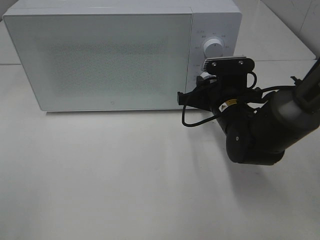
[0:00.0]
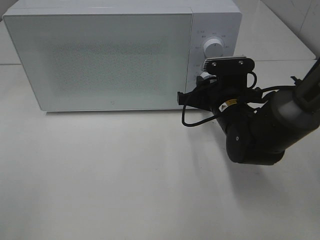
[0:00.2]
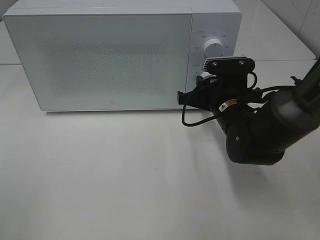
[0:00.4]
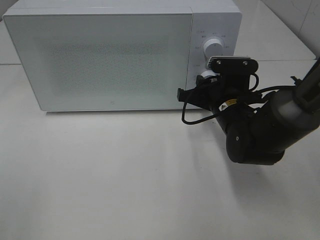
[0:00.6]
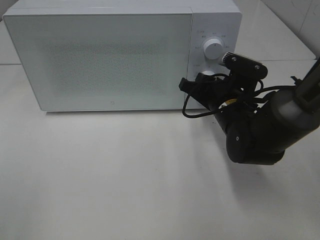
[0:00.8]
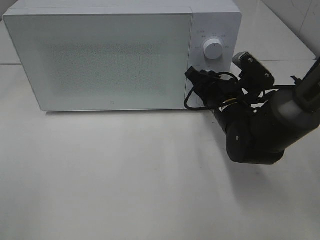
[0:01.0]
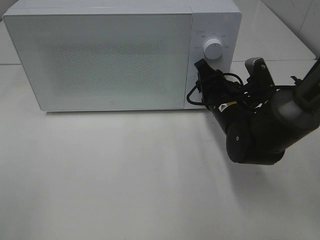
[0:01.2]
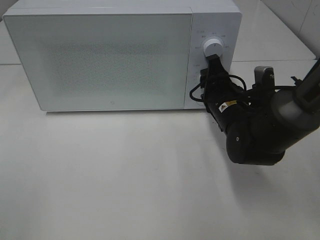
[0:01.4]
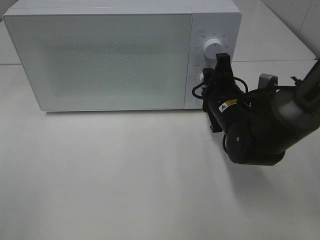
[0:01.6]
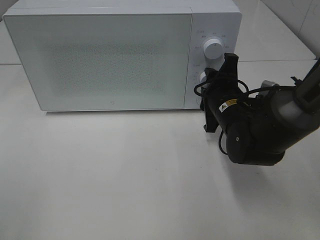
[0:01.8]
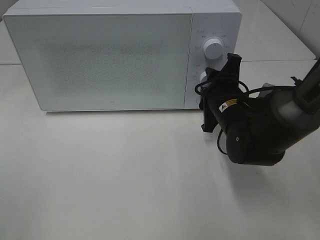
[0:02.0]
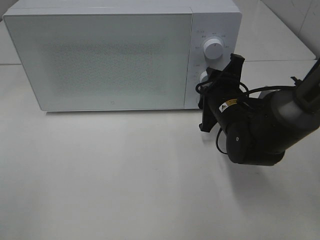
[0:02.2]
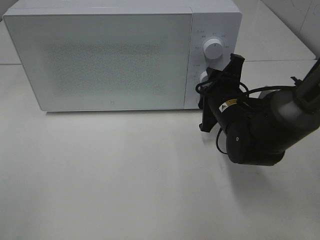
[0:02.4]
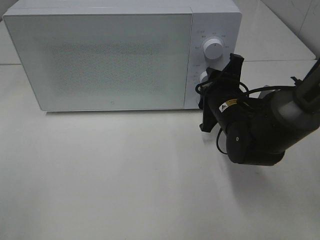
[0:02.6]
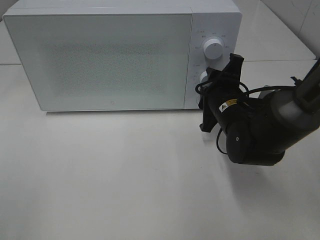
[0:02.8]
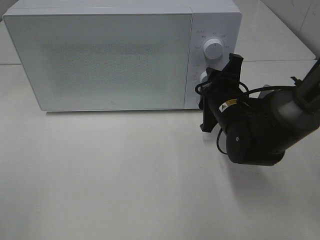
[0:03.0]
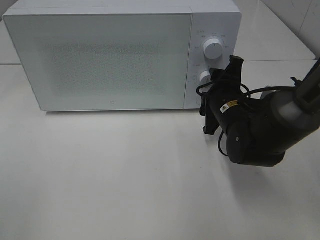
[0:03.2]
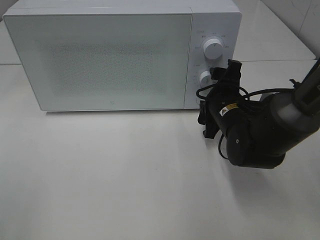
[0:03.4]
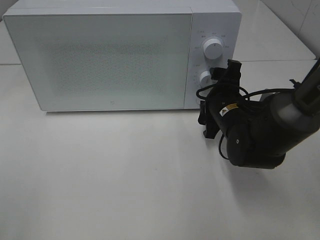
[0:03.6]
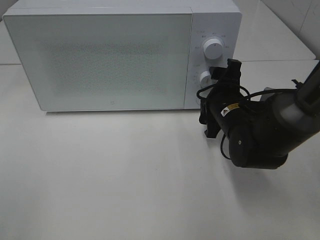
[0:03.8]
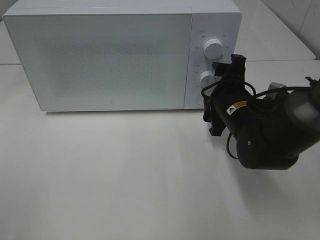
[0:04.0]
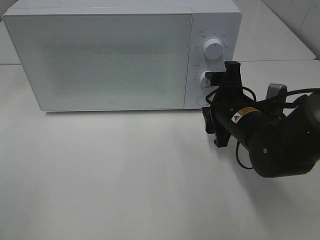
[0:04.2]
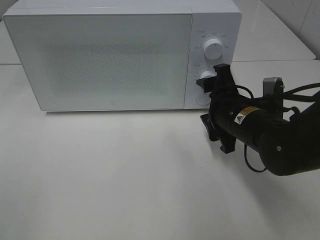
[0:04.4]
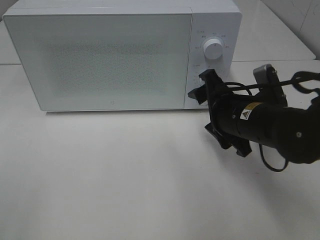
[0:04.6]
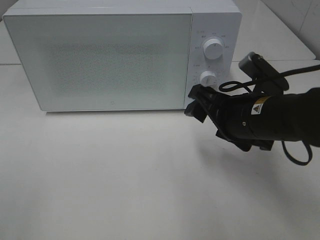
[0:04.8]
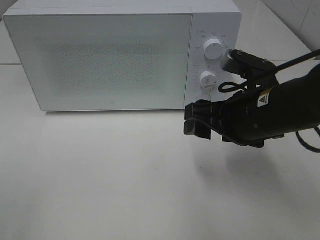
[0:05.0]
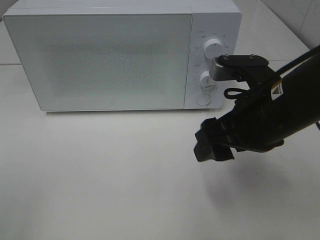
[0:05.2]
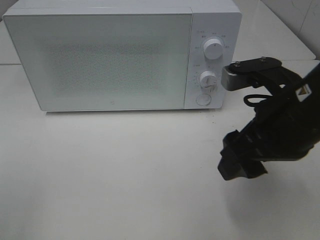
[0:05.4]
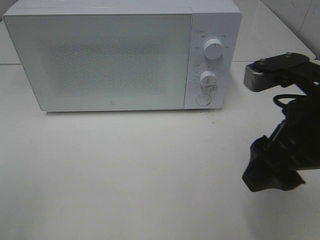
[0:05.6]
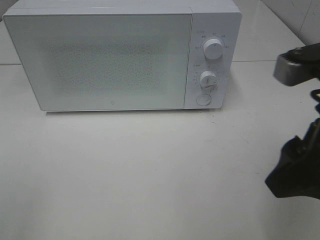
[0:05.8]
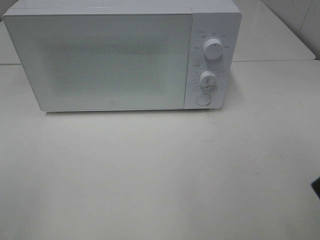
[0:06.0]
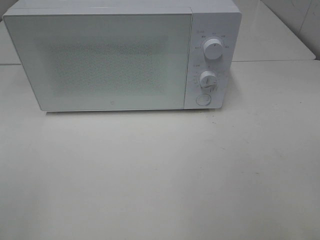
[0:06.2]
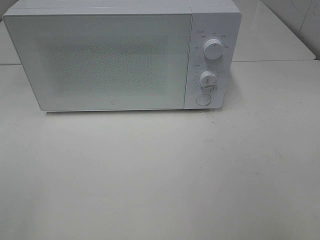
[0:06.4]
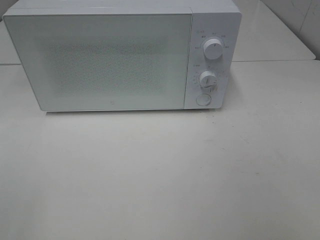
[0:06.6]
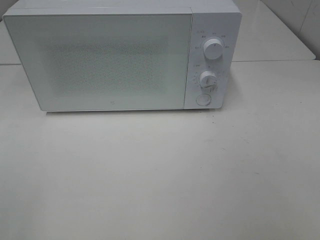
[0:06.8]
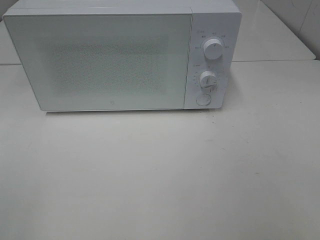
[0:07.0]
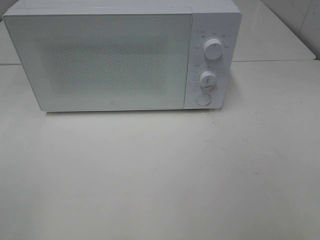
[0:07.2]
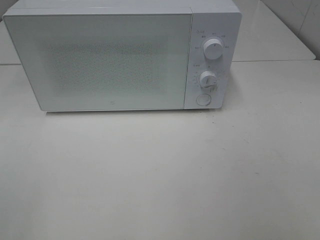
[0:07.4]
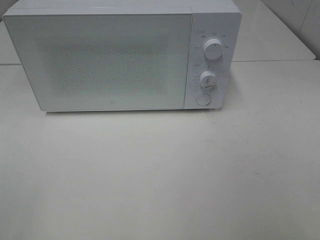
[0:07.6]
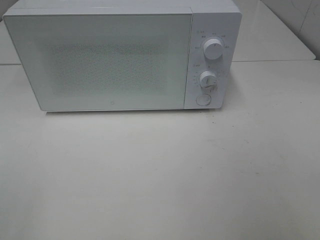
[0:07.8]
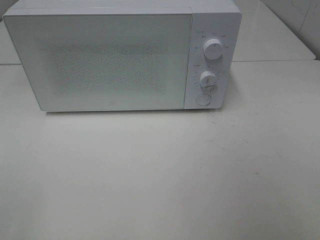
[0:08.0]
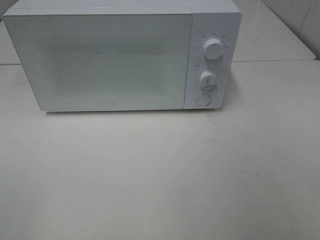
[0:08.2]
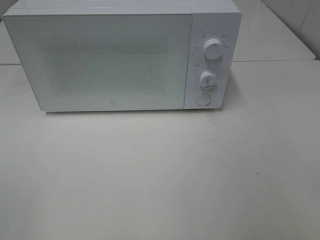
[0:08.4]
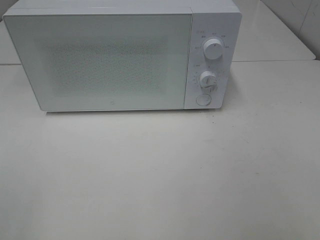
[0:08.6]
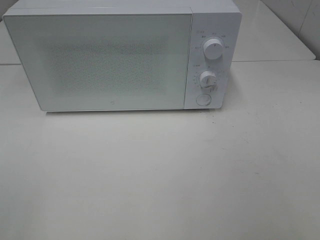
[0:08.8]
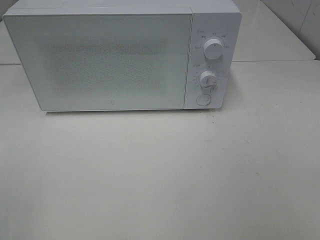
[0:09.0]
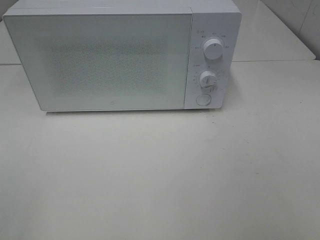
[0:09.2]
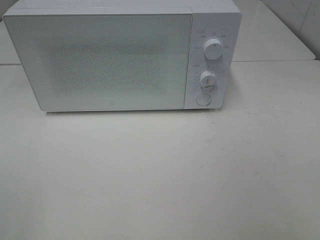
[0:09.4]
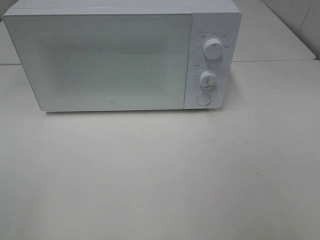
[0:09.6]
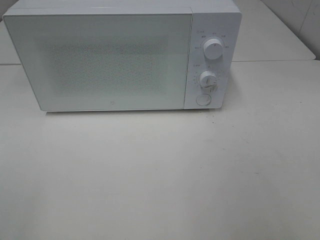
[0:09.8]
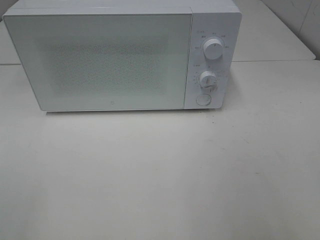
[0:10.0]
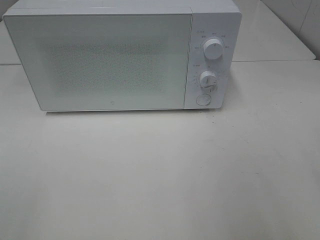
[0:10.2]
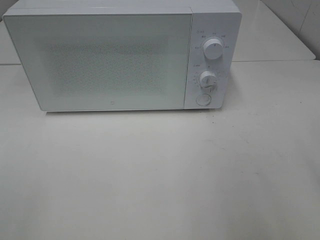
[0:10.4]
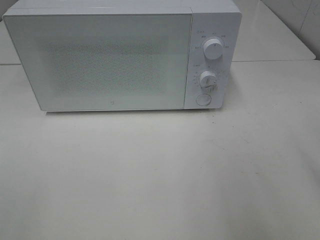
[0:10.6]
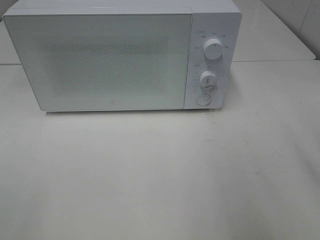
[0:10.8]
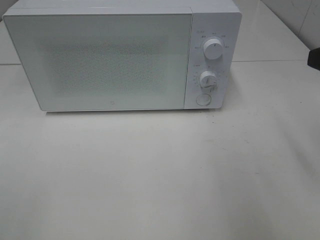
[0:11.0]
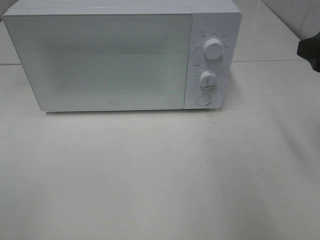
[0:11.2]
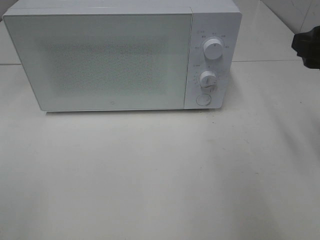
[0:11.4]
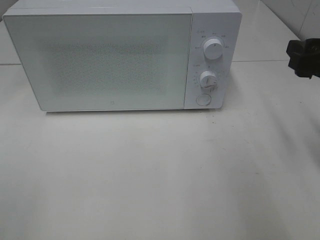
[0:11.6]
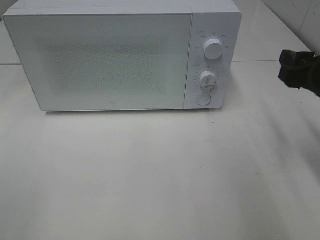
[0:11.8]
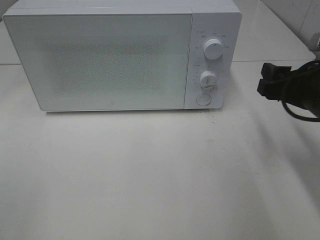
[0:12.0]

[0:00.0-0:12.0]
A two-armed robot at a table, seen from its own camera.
Task of the whole recording: Heat Sandwich.
Step, 0:00.0 to 0:03.6: Right hand: twist timer button.
0:01.6 to 0:03.0: The grippers make only small movements.
0:04.4 to 0:06.0: The right gripper goes some 25 cm upward, backward and to the right.
0:07.6 to 0:09.0: Both grippers stay put.
0:10.4 to 0:12.0: The right gripper travels downward and forward by some 15 cm.

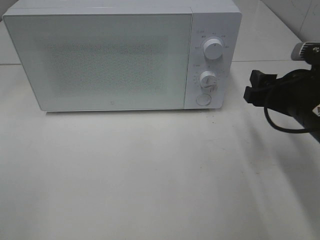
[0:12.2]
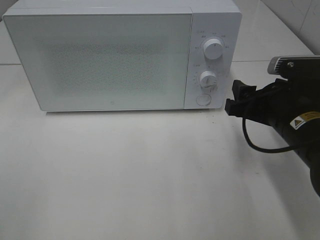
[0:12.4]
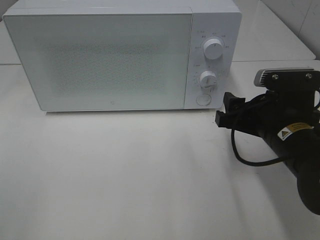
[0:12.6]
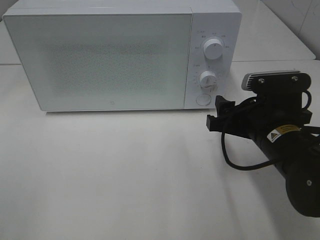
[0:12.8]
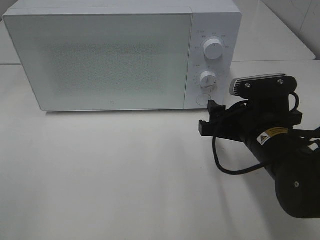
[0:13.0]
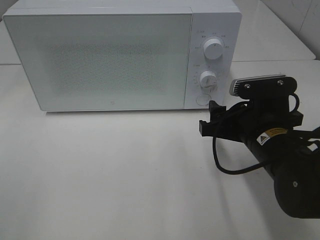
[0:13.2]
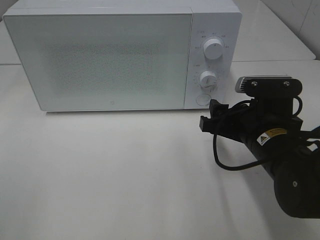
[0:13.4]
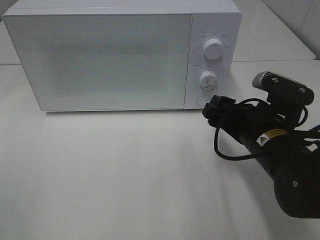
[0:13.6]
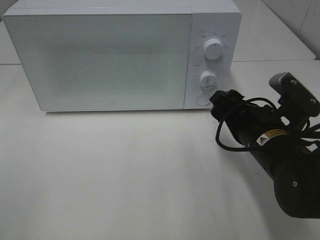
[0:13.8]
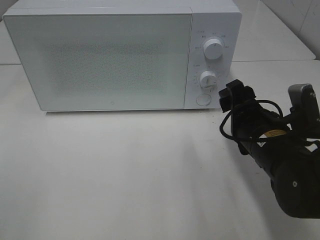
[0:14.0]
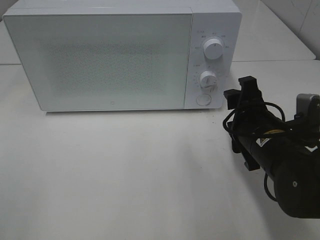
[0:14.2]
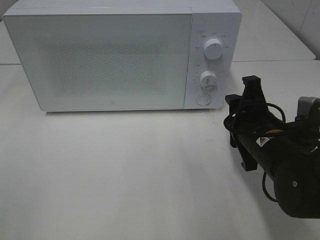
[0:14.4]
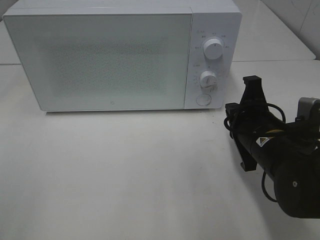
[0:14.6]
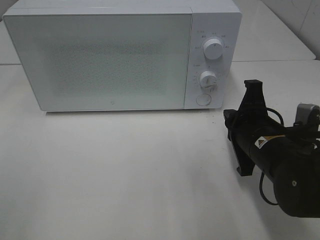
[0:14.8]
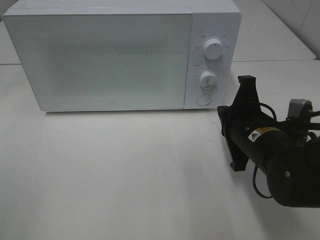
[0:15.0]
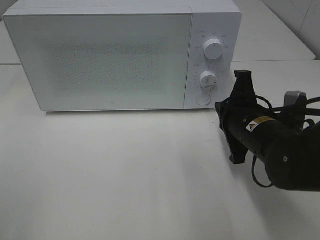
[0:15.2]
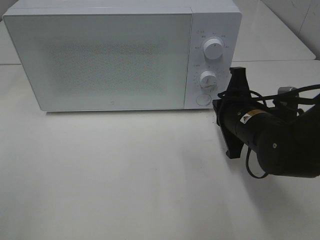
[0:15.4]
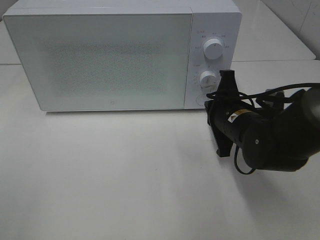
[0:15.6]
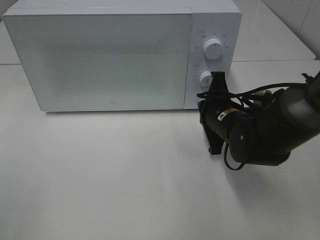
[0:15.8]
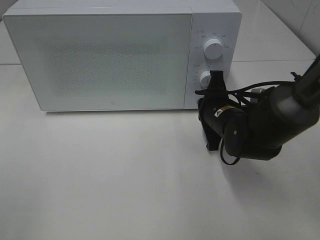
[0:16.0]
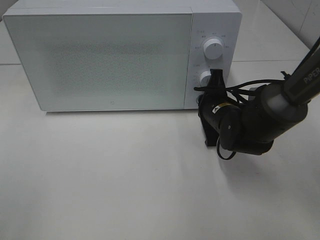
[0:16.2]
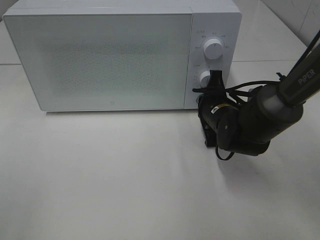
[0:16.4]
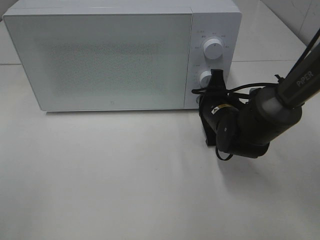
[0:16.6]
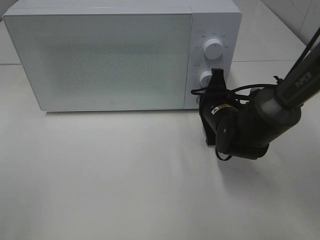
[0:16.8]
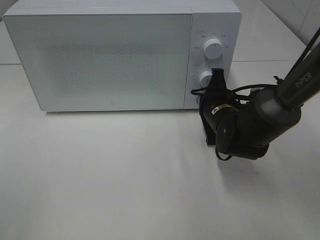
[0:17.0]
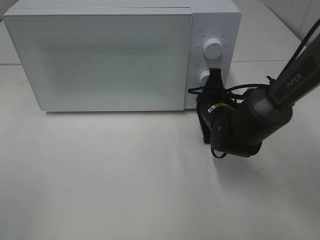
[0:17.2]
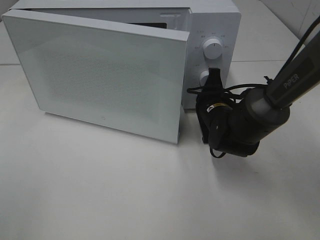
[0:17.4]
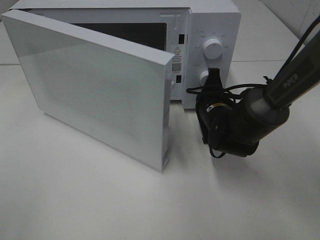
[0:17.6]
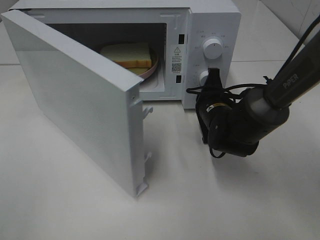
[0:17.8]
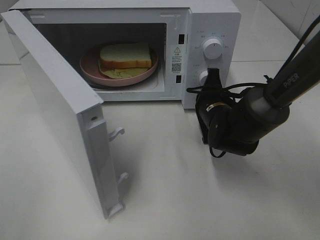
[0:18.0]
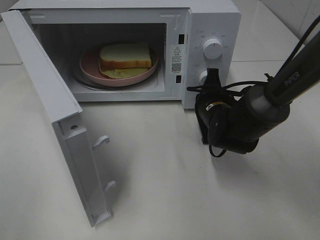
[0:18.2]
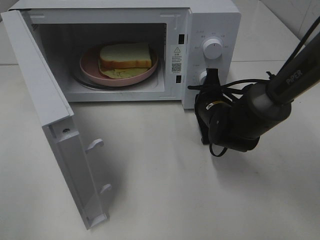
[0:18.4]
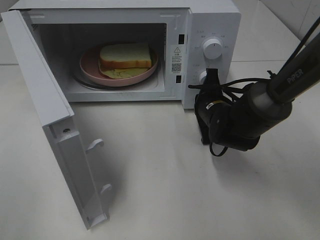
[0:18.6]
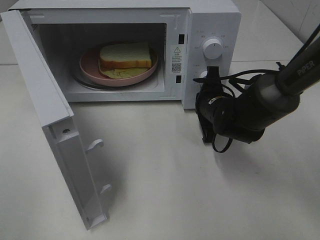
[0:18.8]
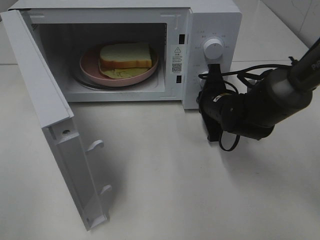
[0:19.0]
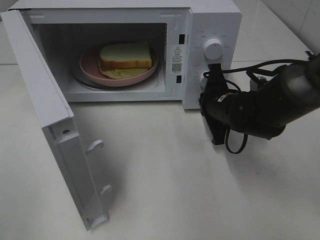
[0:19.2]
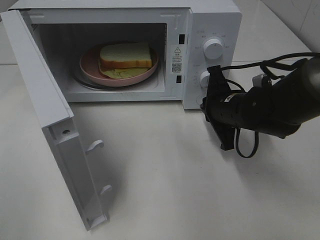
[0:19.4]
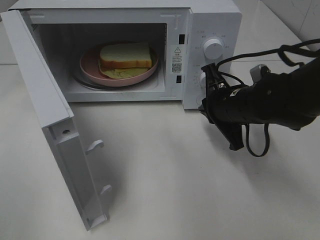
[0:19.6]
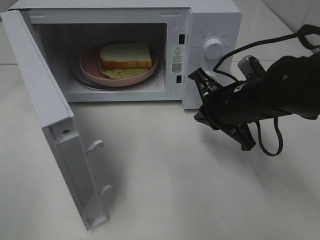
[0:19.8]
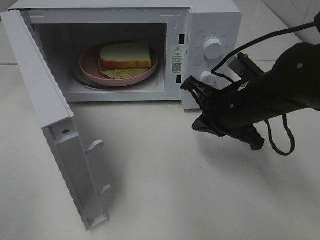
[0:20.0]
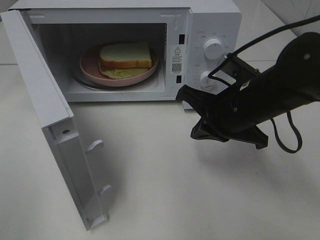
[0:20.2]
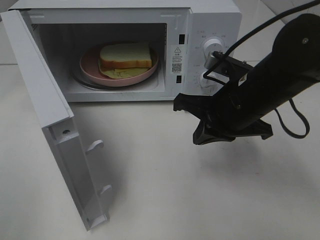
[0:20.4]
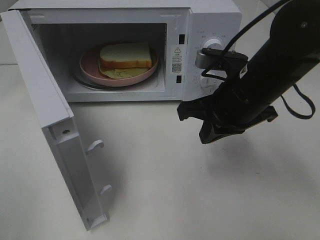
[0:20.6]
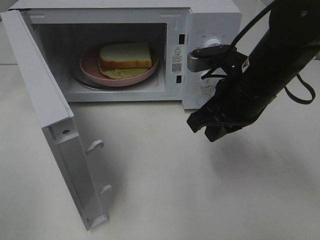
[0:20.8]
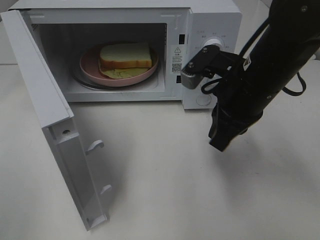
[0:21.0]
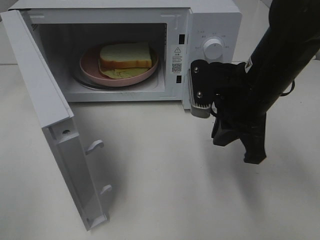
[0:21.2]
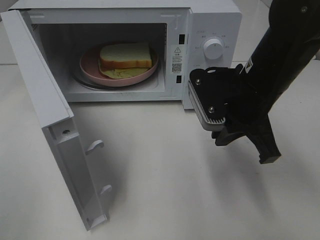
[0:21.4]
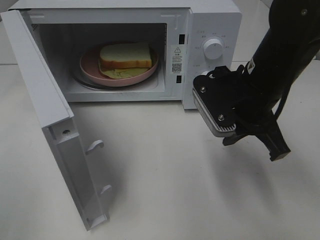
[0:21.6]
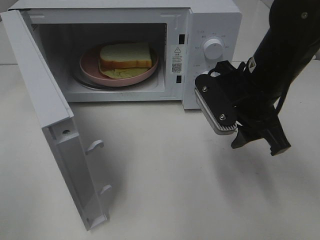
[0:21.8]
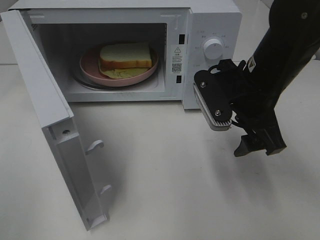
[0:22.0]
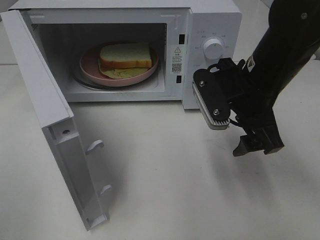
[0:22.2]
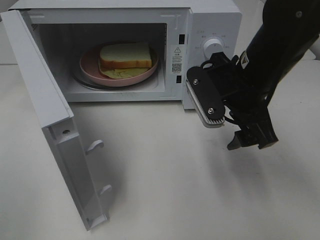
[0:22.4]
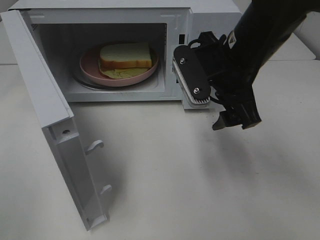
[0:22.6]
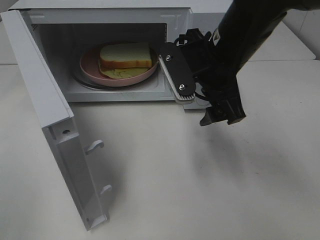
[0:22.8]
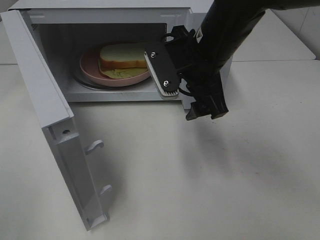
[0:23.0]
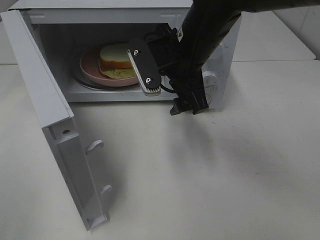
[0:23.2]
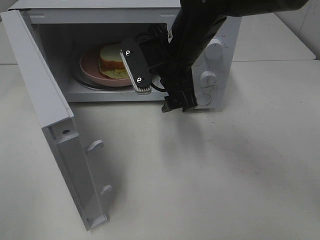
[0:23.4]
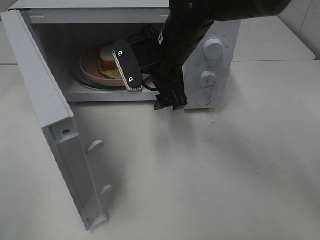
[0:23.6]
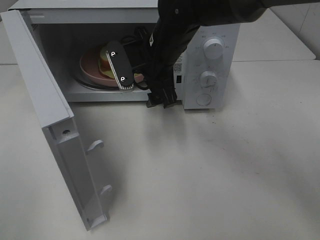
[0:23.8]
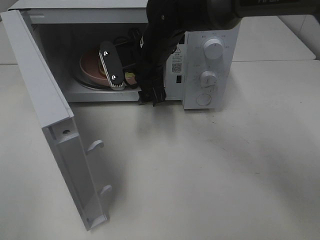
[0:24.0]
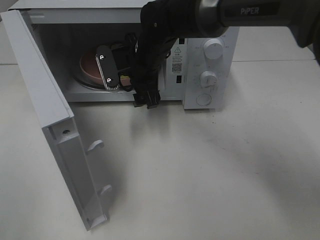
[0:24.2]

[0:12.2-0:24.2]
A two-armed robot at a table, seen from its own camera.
Task of the whole recording: Heat Sandwich.
Step, 0:12.2 to 0:19.2: Right hand: press the switch.
0:12.2 to 0:13.8: The right gripper moves to the left, some 5 cm.
0:13.8 to 0:15.2: The right gripper closes its fingers.
0:15.2 to 0:16.6: The right gripper is displaced forward and downward by about 10 cm.
0:18.2 to 0:19.8: The right gripper goes some 10 cm upward and backward.
0:19.8 to 0:21.2: The right gripper travels upward by about 5 cm.
0:21.2 to 0:22.6: The right gripper opens.
0:22.6 to 0:24.2: The right gripper goes about 20 cm to the left, forward and downward.
